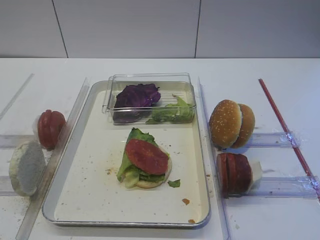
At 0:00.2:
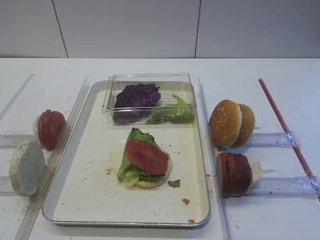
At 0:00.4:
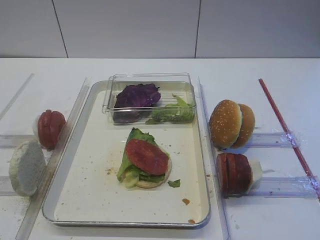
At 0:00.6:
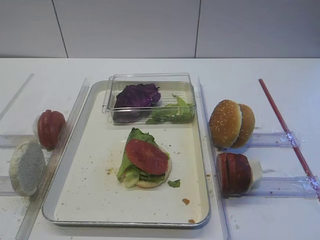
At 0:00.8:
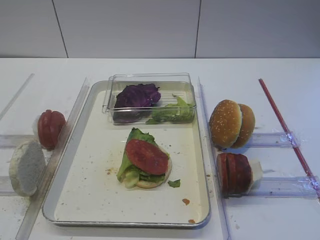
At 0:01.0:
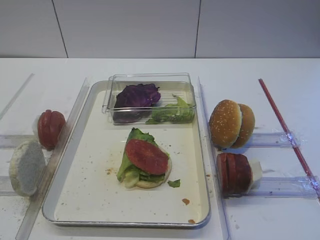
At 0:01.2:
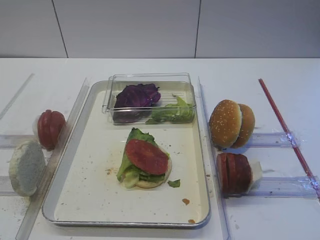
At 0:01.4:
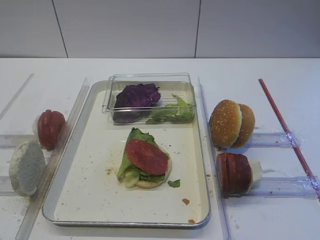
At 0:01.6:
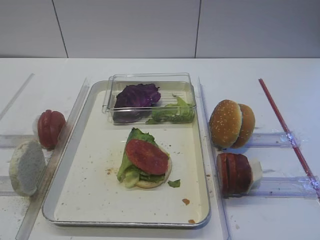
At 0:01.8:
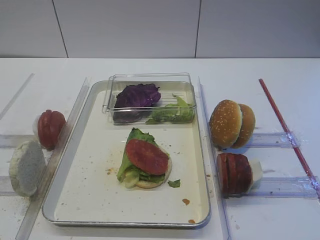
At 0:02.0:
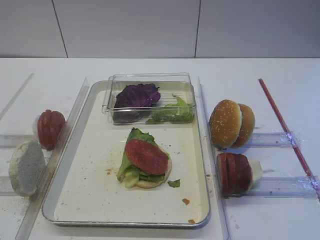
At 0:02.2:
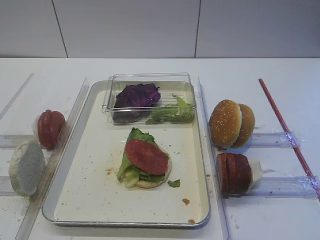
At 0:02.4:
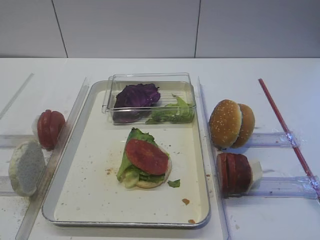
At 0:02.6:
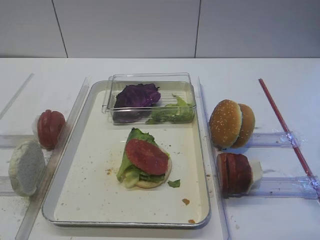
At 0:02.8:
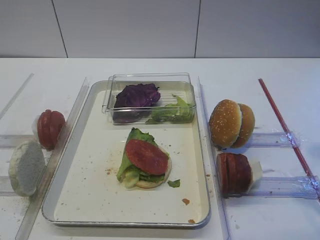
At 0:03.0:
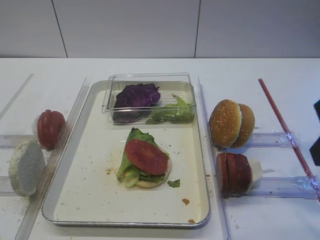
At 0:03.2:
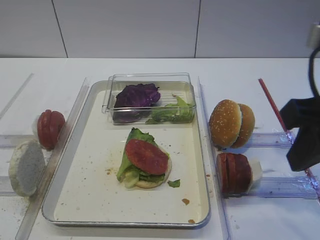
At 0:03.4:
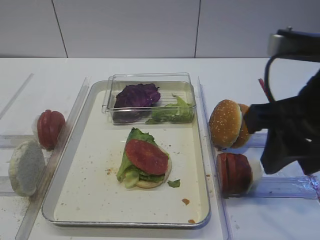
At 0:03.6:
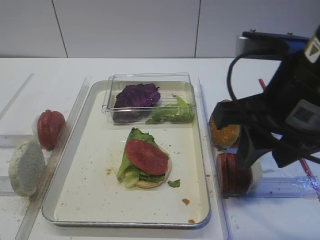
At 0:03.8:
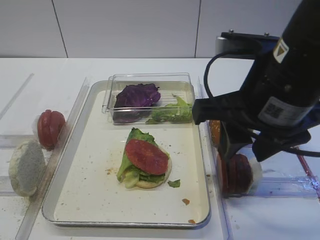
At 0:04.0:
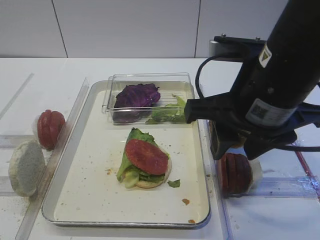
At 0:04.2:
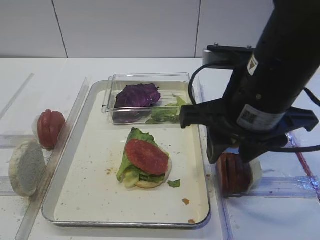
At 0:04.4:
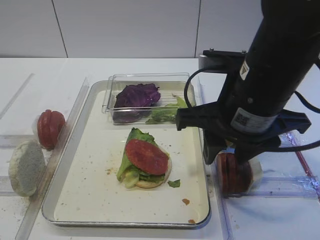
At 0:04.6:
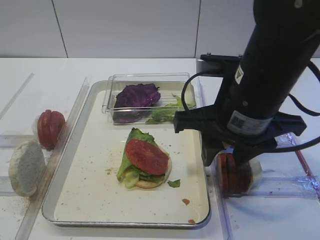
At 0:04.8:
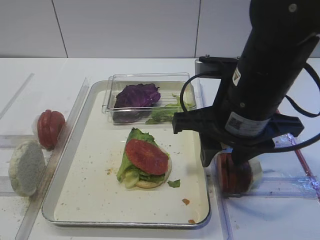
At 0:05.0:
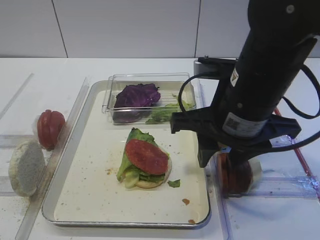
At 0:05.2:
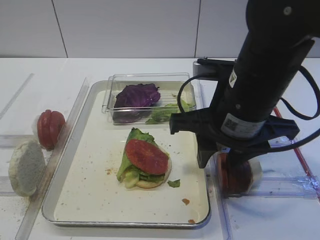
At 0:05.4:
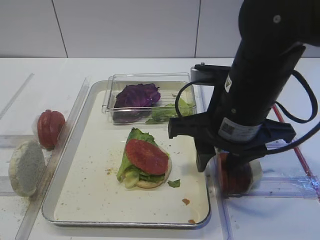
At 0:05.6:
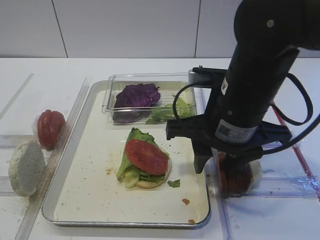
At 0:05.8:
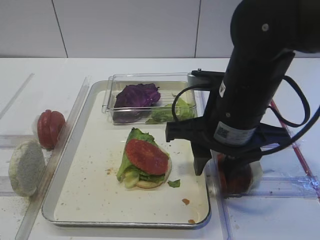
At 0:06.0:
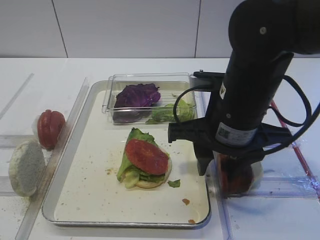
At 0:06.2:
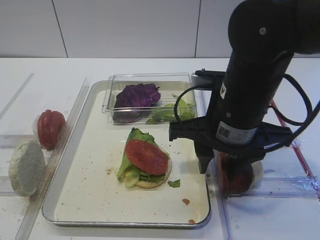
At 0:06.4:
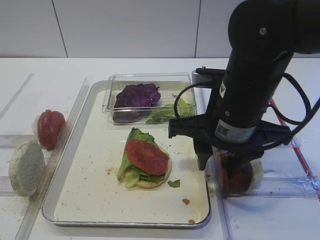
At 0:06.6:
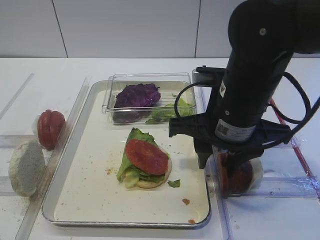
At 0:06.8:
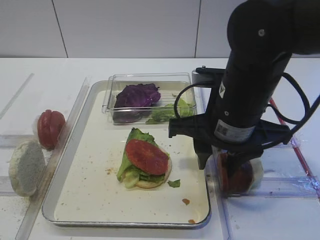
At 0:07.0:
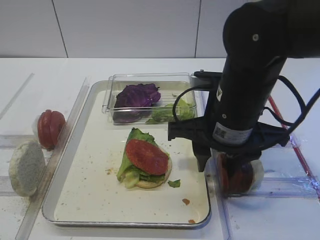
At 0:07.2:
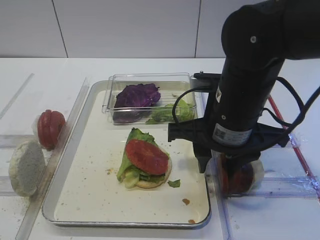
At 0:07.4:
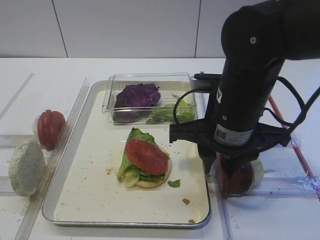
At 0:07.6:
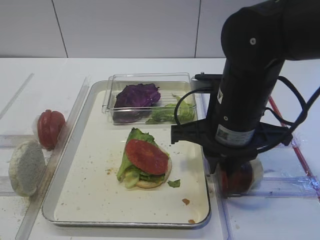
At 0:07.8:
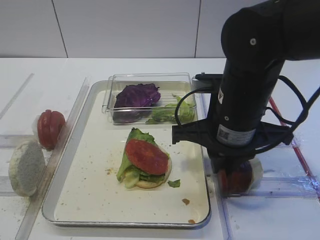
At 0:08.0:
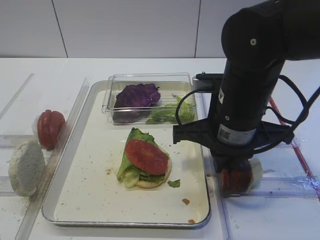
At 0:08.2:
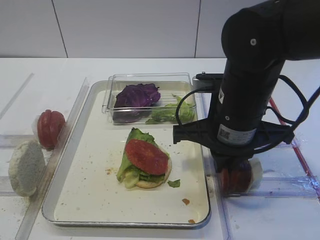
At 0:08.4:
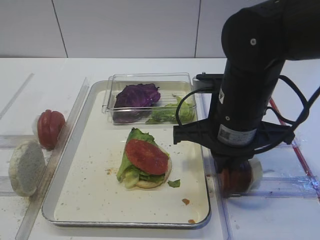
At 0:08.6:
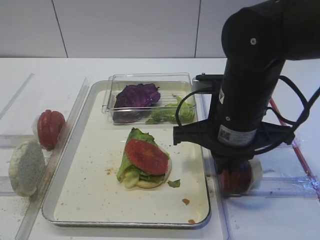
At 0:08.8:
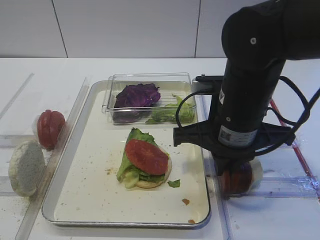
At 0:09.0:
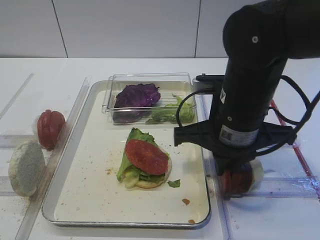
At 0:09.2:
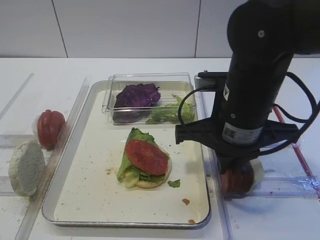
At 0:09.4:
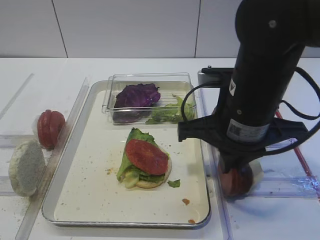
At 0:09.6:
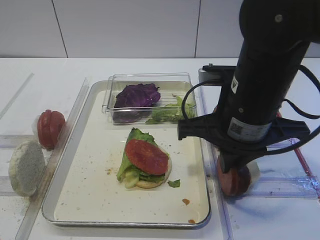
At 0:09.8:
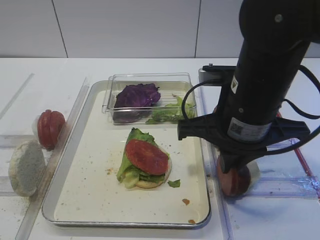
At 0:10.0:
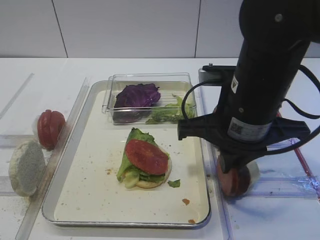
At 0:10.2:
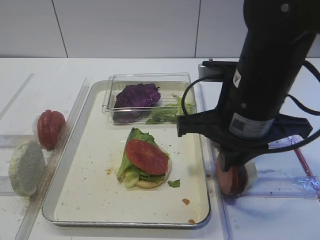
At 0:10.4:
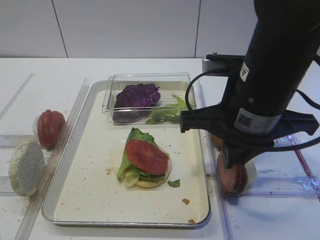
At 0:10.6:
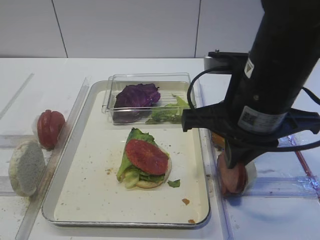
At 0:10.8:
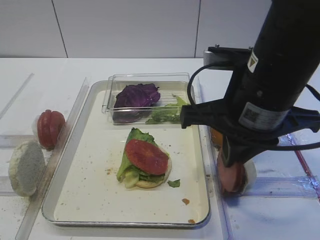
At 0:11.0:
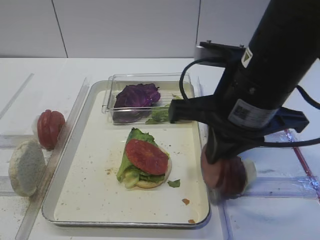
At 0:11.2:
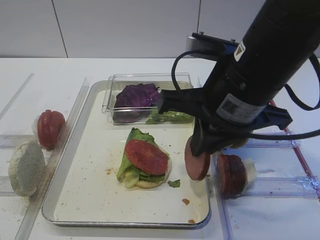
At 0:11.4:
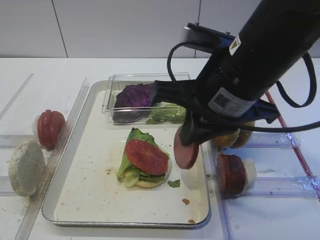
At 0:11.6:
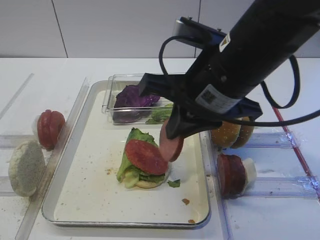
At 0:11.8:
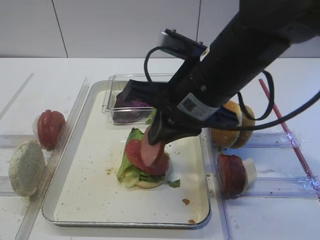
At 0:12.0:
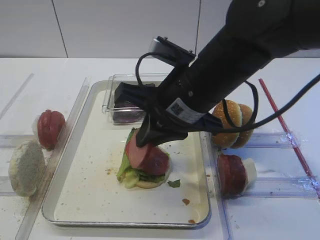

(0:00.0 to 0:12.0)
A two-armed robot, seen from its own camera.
Step, 0:00.0 - 0:10.6: Pick up the cutlet with the right gripper.
0:01.6 - 0:03.0: The right gripper moves forward and to the left, about 10 cm.
0:03.0 - 0:04.4: The right gripper shifts approximately 15 cm to the left, forward and downward.
0:04.4 - 0:06.0: The grippers make only small movements.
0:06.0 - 0:07.6: The right gripper closes.
0:07.6 - 0:09.0: The right gripper closes.
0:09.0 - 0:10.4: The grippers stay close to where they were, moving slightly.
0:10.4 - 0:12.0: The right gripper moves to the left, roughly 5 cm.

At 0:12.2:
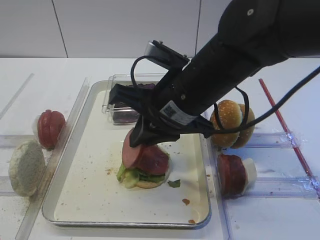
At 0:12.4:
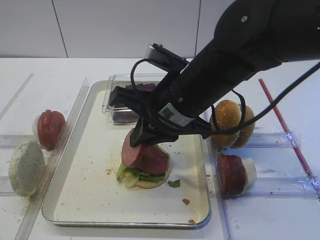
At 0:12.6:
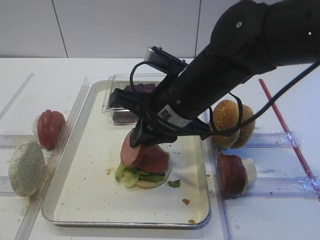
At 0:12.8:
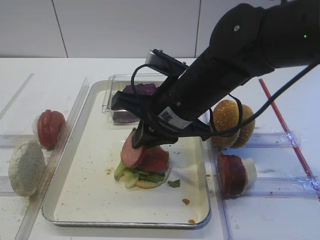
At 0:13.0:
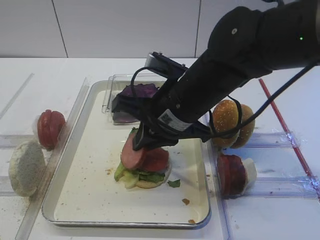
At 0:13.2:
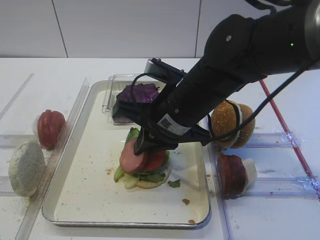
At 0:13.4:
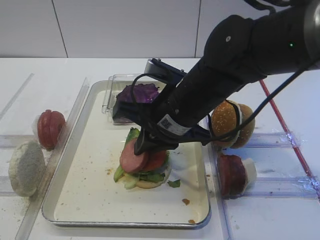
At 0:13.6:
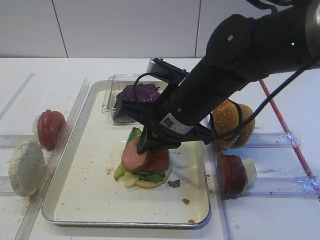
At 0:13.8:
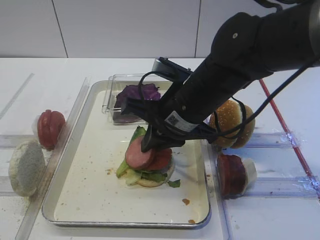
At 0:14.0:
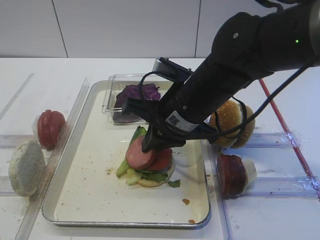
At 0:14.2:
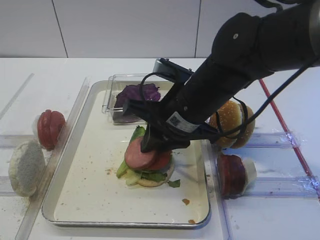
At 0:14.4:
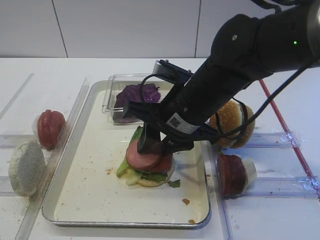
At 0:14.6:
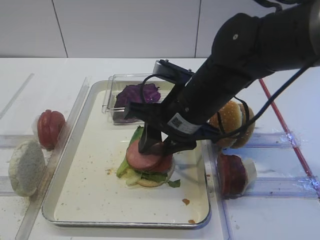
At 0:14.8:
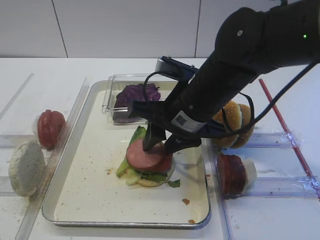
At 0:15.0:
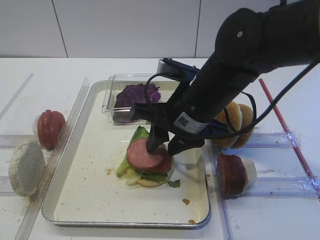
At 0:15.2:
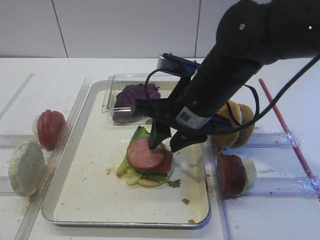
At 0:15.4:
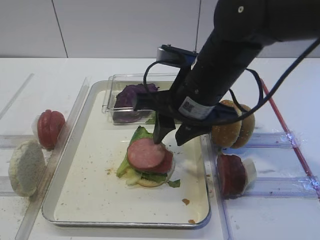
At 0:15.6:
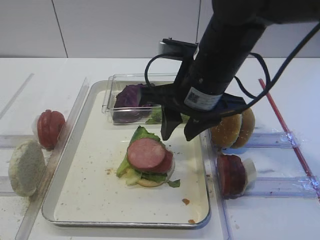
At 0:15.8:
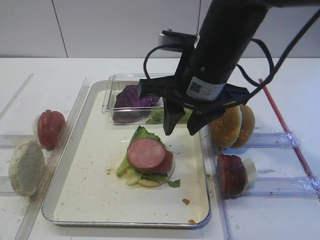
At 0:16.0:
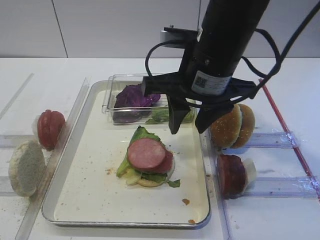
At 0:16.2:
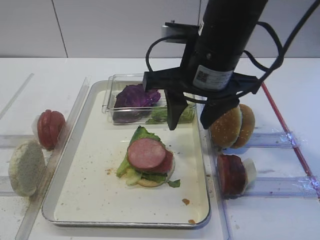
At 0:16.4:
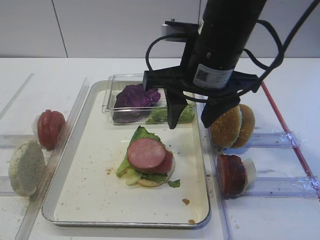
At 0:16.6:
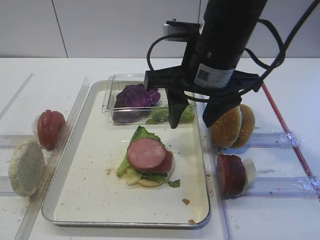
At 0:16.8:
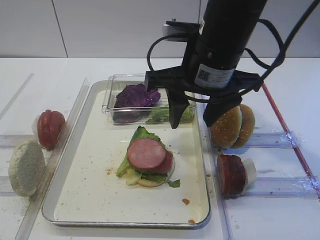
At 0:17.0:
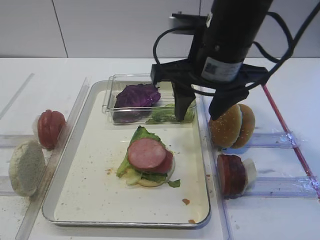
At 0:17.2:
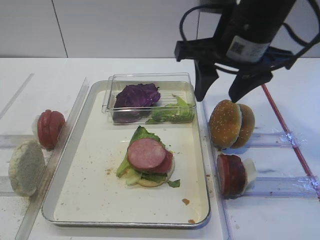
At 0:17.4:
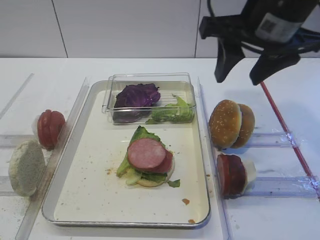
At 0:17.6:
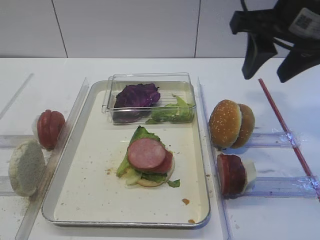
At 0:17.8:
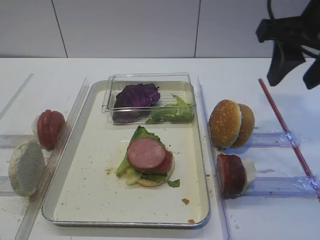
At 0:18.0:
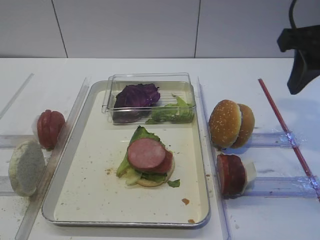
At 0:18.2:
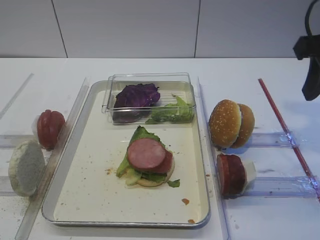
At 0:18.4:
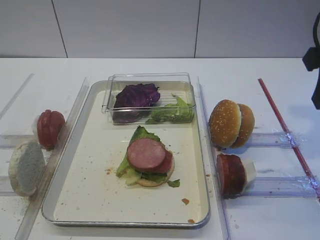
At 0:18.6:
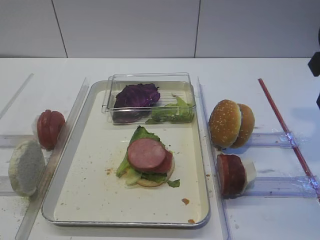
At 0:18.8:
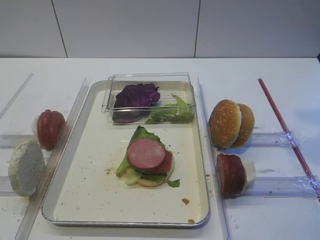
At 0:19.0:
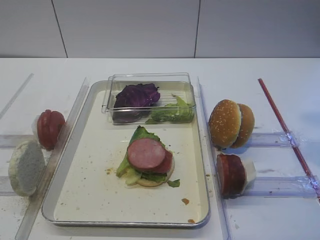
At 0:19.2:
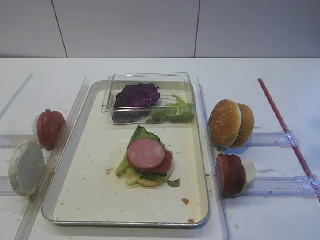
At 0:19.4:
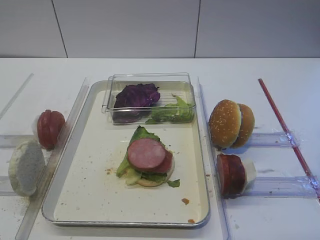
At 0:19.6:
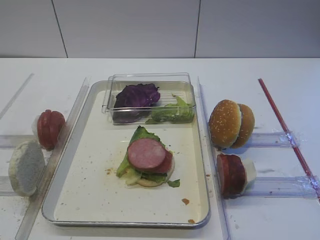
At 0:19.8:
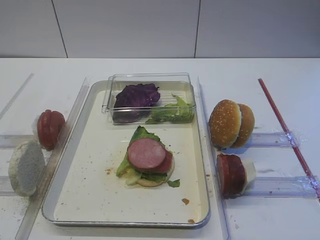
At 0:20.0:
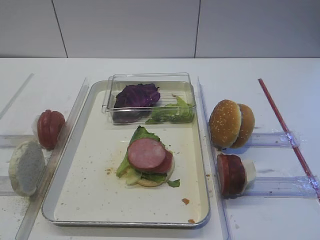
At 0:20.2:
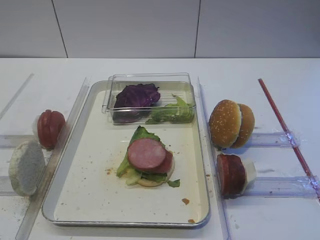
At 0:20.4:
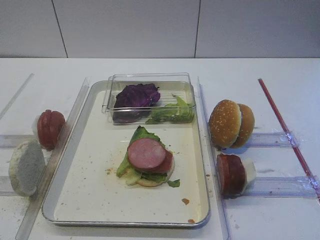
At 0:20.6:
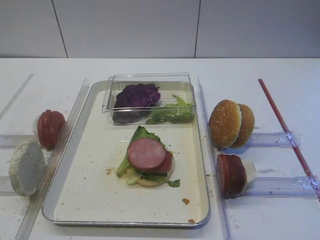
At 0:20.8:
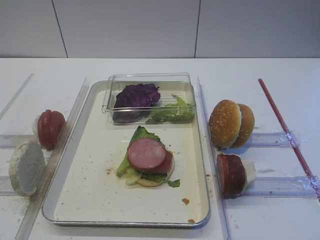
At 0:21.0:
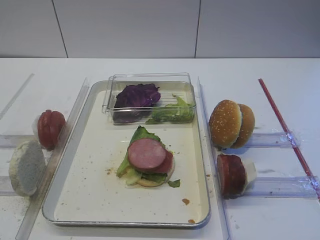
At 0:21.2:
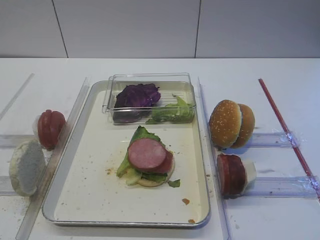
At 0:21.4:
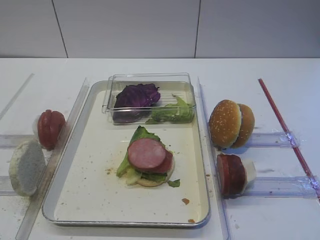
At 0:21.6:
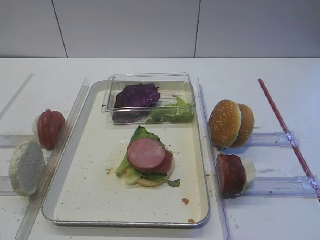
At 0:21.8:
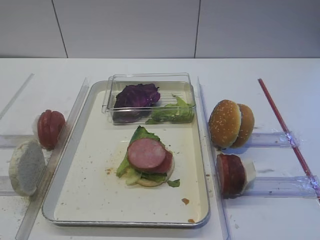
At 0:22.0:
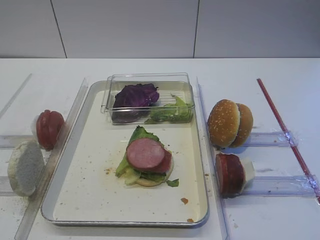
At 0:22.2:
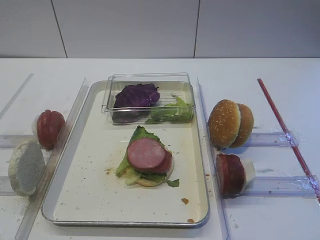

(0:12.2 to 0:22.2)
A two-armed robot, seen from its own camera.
Step, 0:12.2 - 0:16.0: Place the cutlet on the tomato slice with the right gripper.
0:12.2 - 0:13.6: The grippers stay close to where they were, moving slightly.
0:13.6 - 0:15.0: The right gripper opens.
0:15.0 - 0:16.4: The right gripper shifts roughly 10 cm upward.
0:16.4 - 0:18.0: The right gripper heads to the right, covering some 15 cm.
0:18.0 - 0:19.4: The right gripper heads backward, covering approximately 10 cm.
